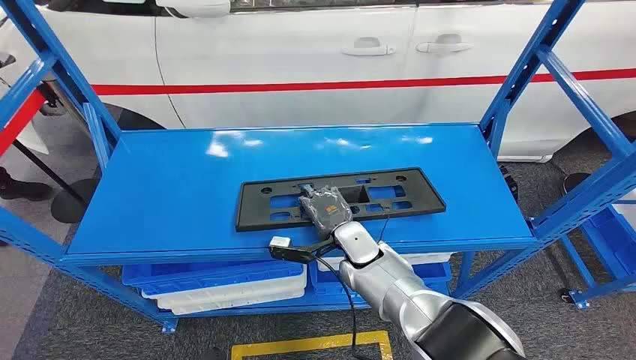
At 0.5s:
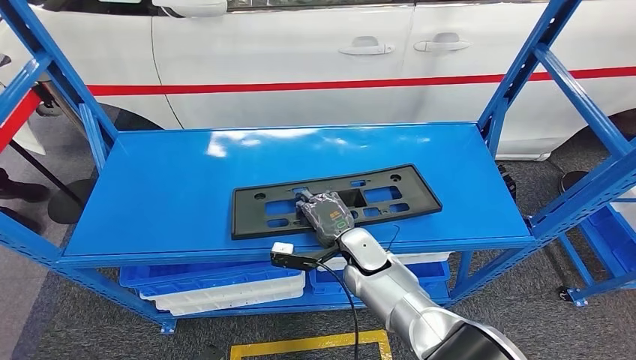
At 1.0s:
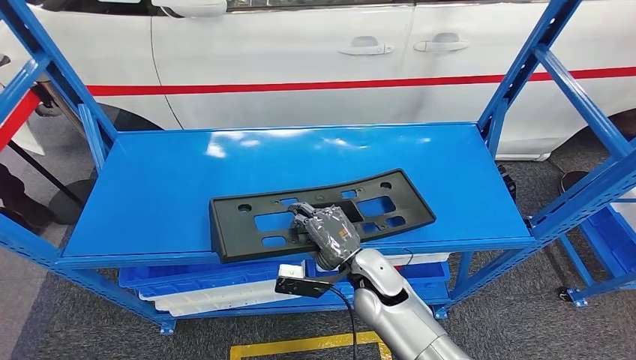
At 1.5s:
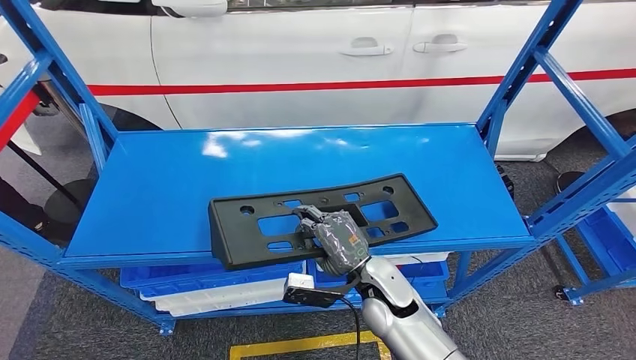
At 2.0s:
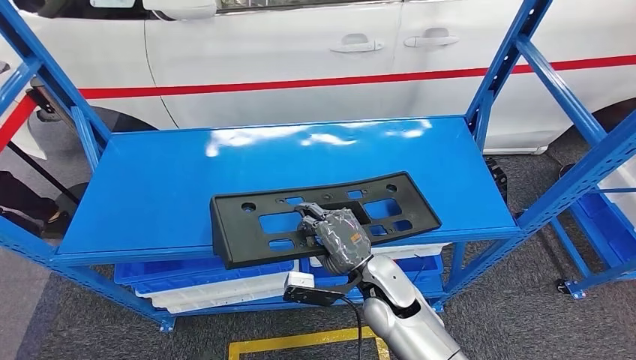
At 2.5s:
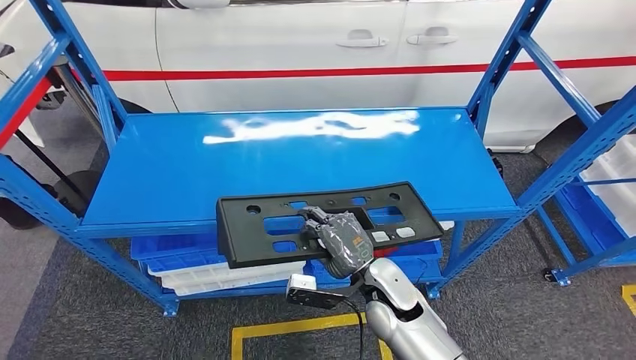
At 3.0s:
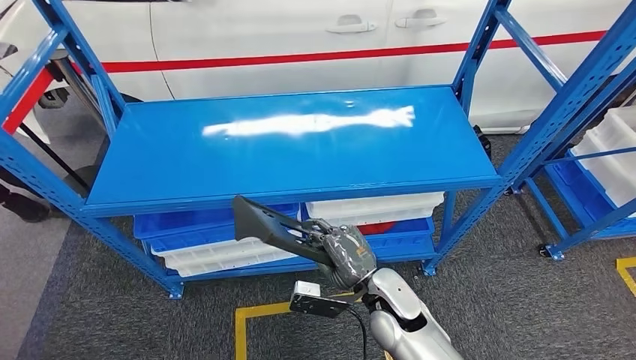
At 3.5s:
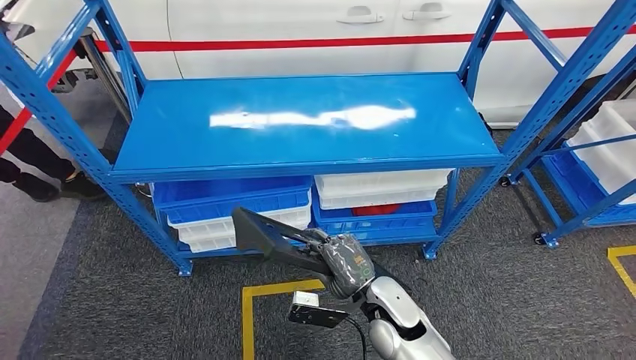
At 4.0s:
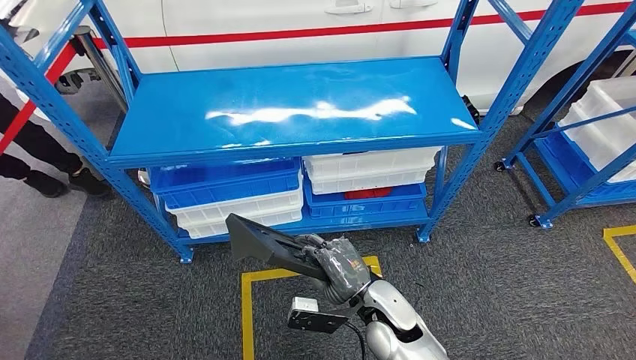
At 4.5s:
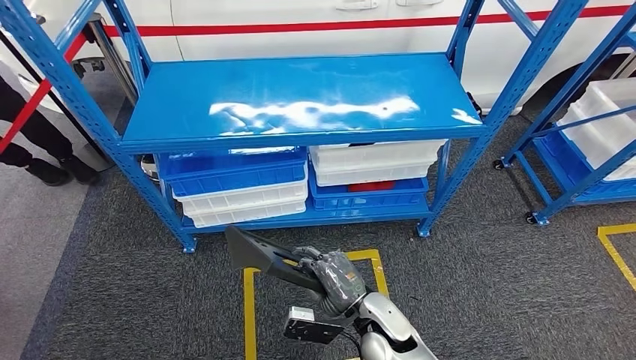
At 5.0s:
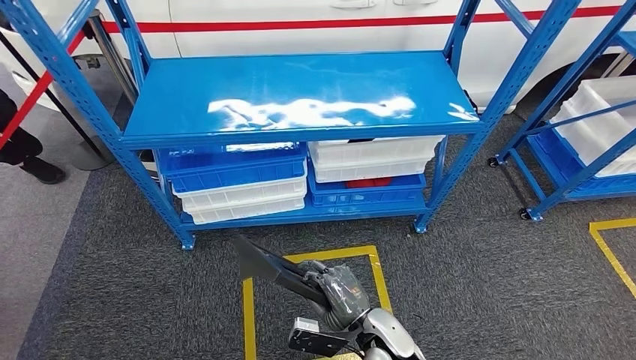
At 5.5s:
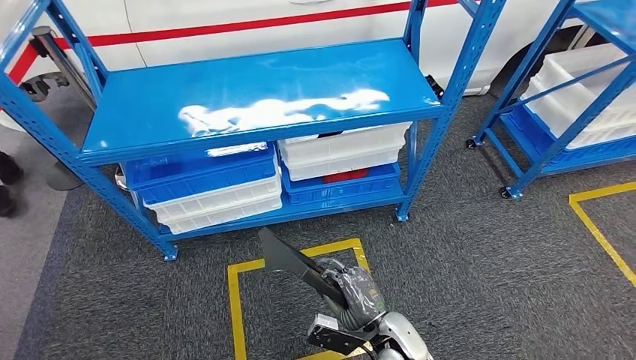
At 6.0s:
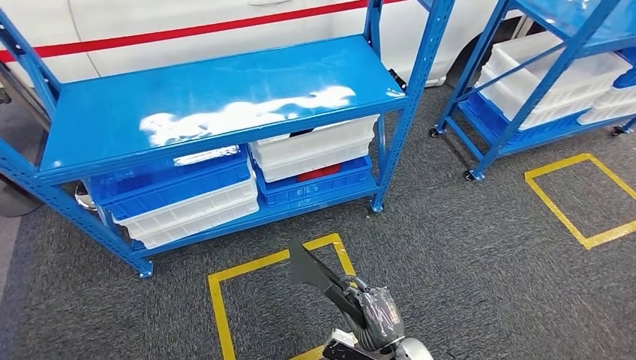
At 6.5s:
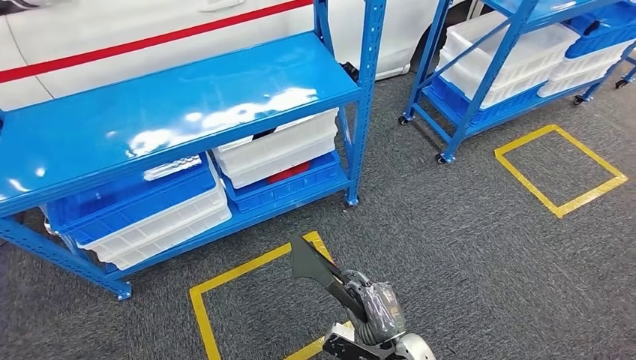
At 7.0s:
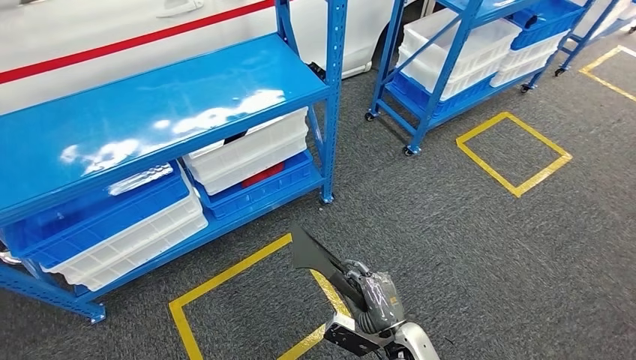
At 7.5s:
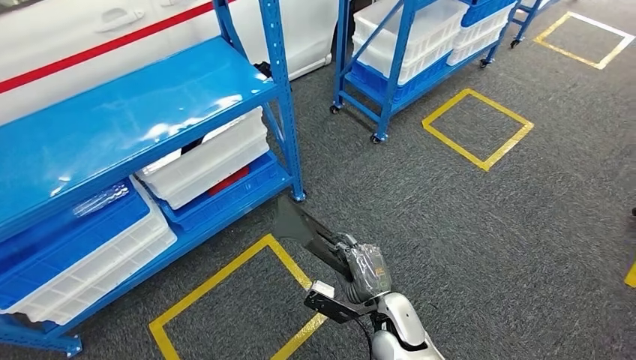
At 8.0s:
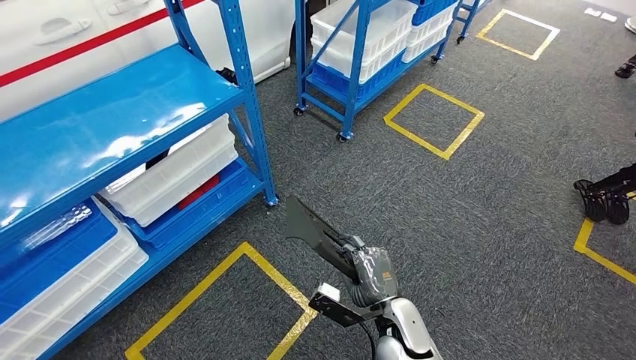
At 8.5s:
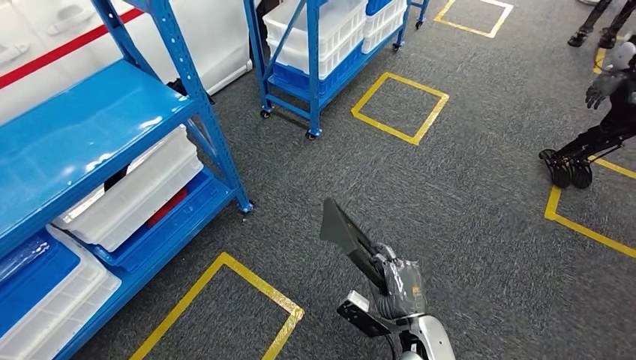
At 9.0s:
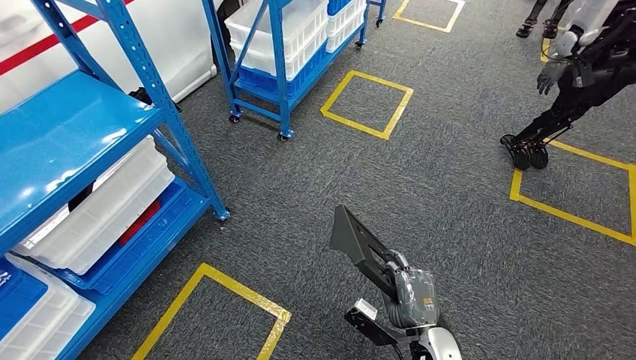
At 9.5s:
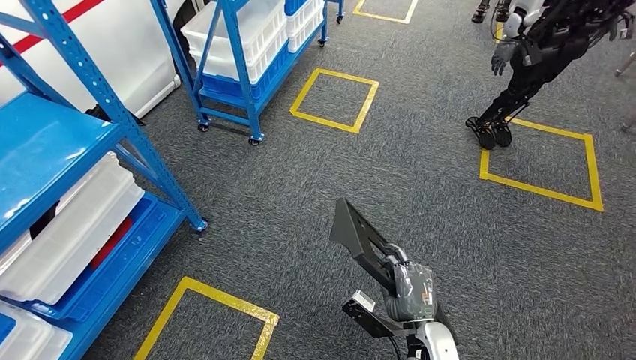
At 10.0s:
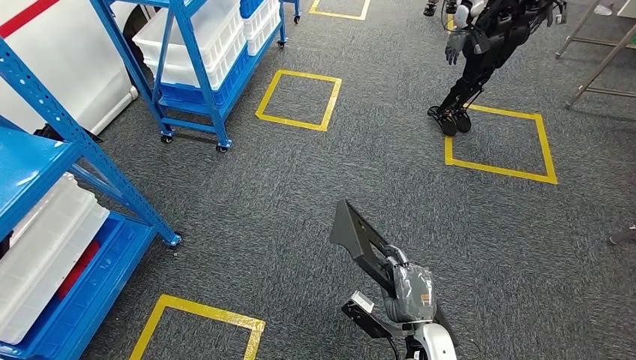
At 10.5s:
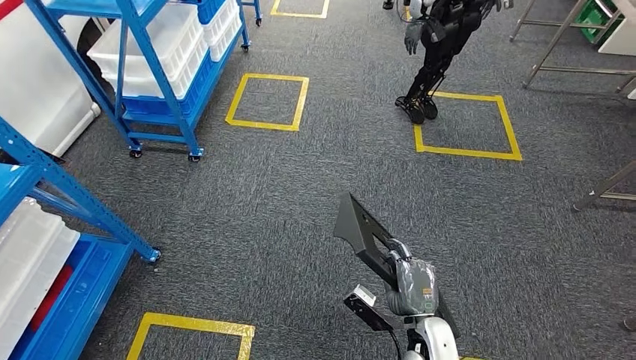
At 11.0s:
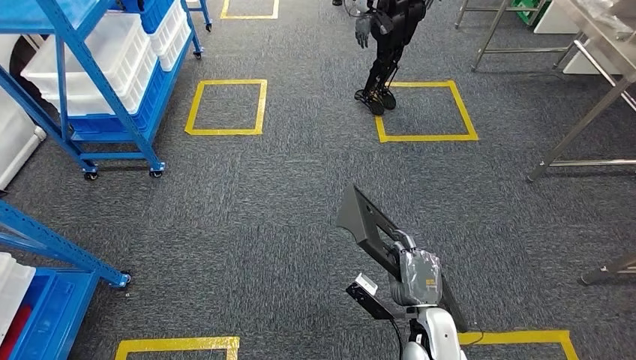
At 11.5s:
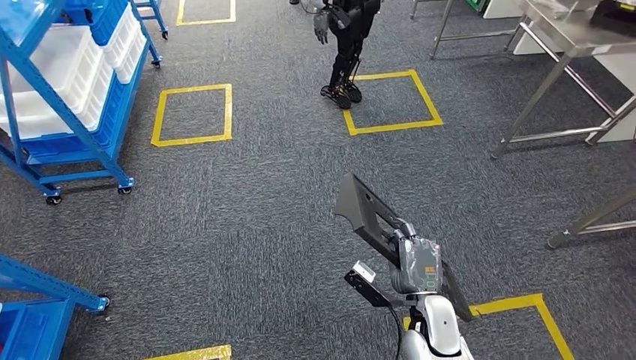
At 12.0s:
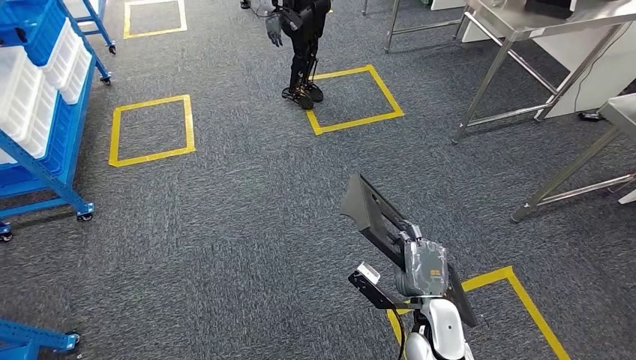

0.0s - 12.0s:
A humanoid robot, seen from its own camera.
Step, 0.0s - 1.5s: Pick up the large material from the shelf.

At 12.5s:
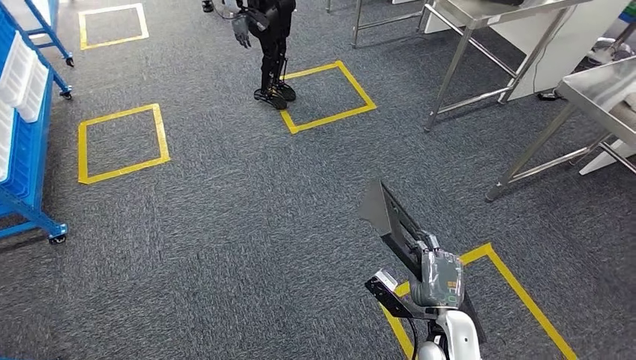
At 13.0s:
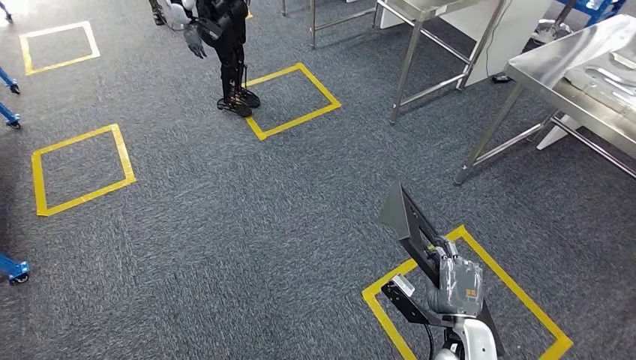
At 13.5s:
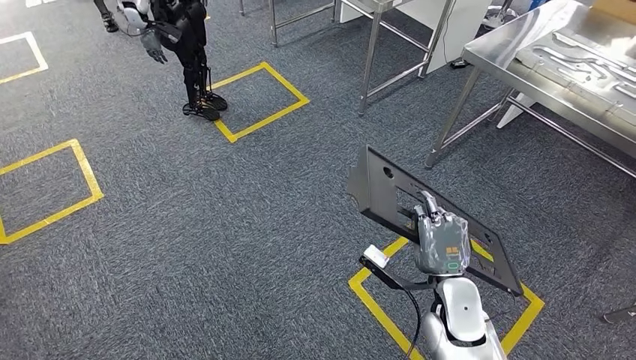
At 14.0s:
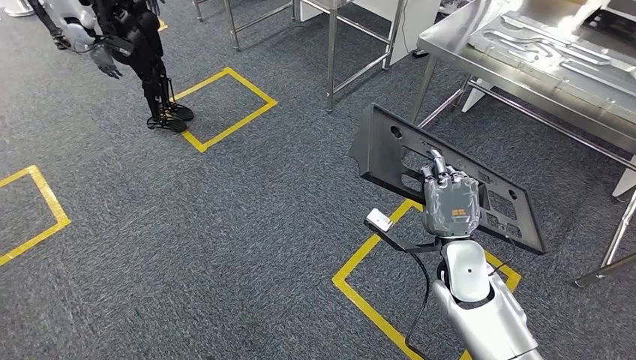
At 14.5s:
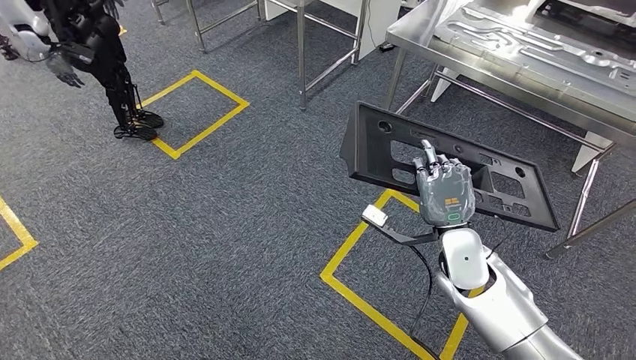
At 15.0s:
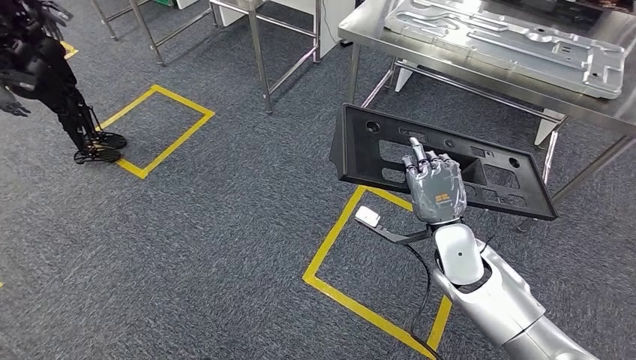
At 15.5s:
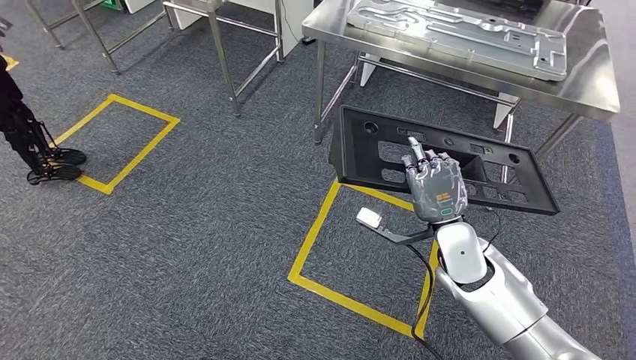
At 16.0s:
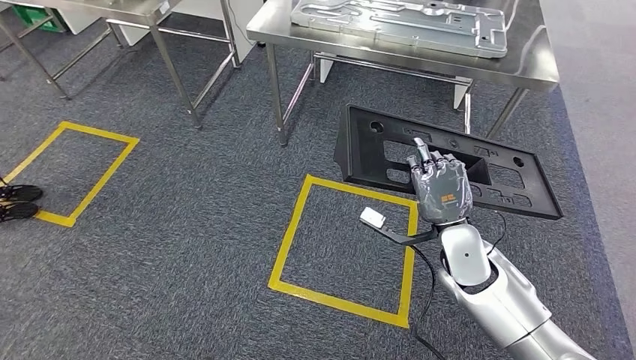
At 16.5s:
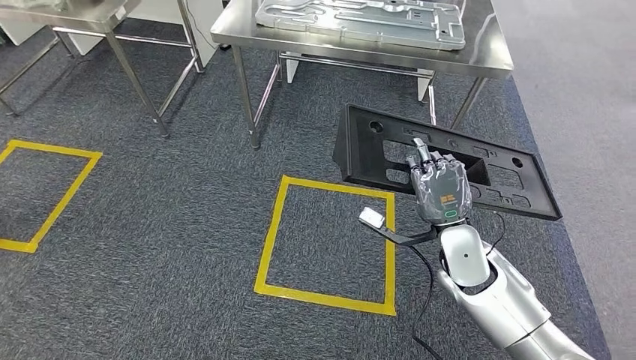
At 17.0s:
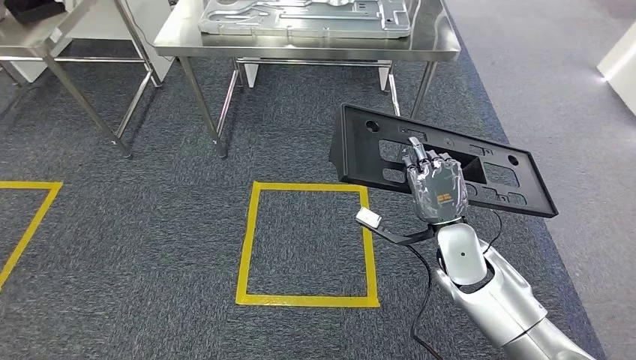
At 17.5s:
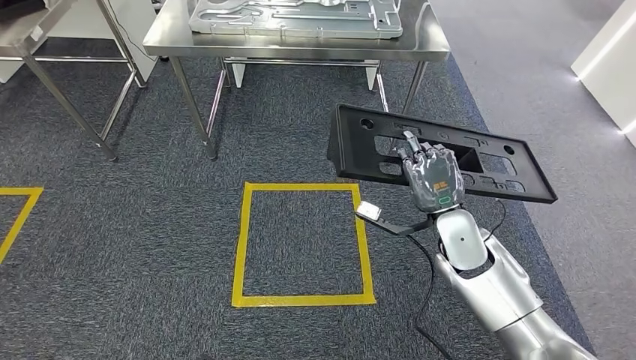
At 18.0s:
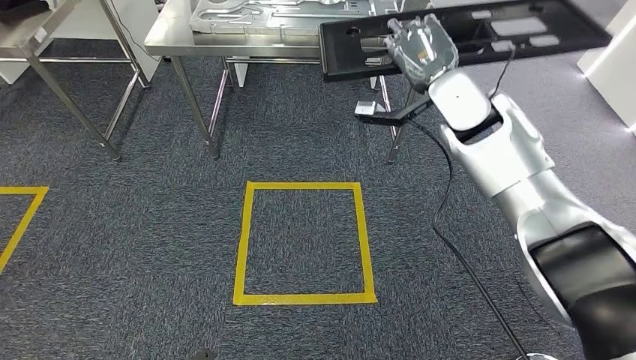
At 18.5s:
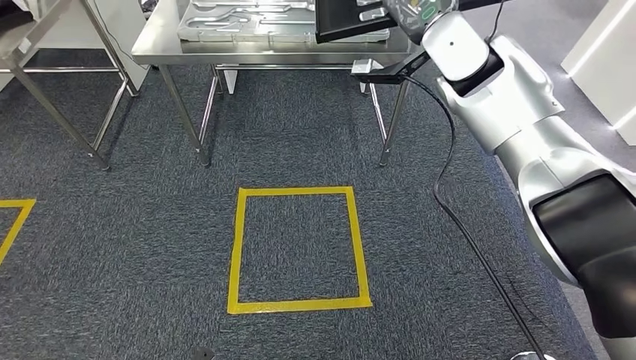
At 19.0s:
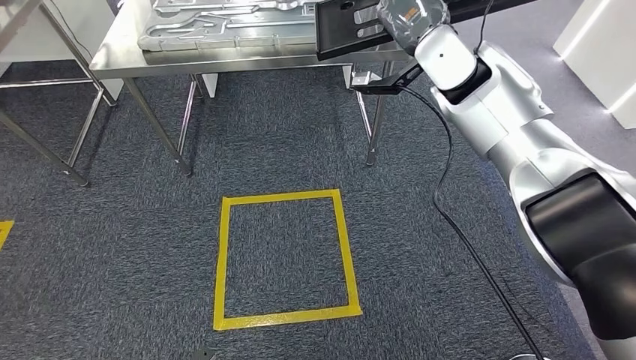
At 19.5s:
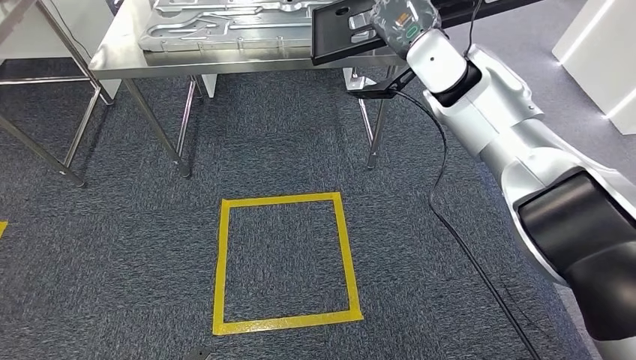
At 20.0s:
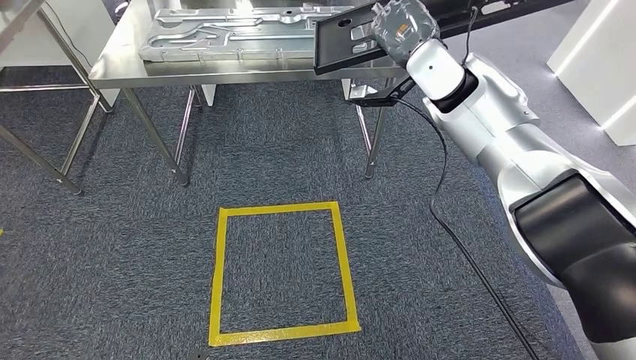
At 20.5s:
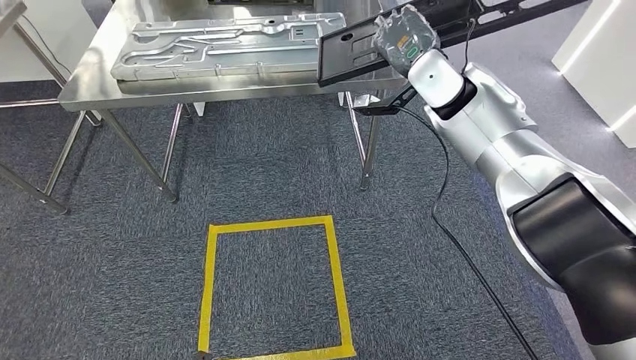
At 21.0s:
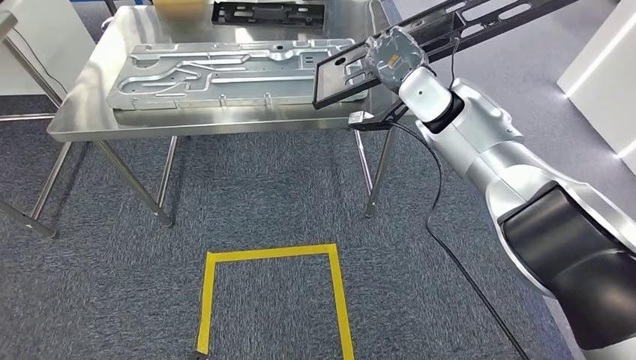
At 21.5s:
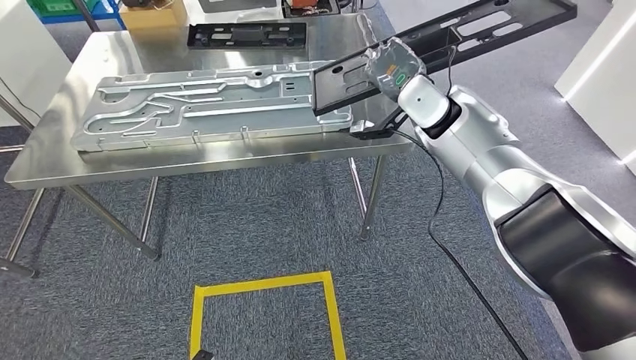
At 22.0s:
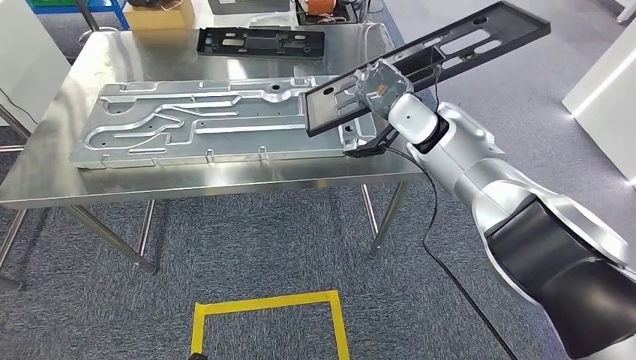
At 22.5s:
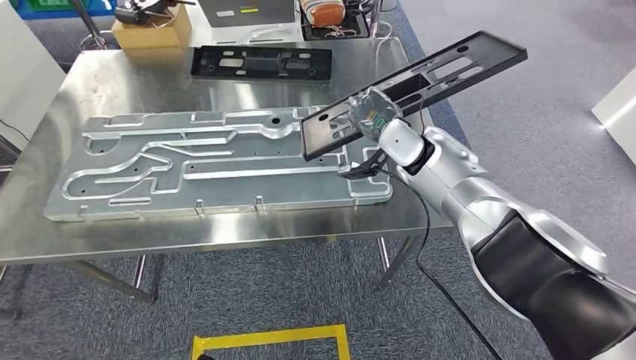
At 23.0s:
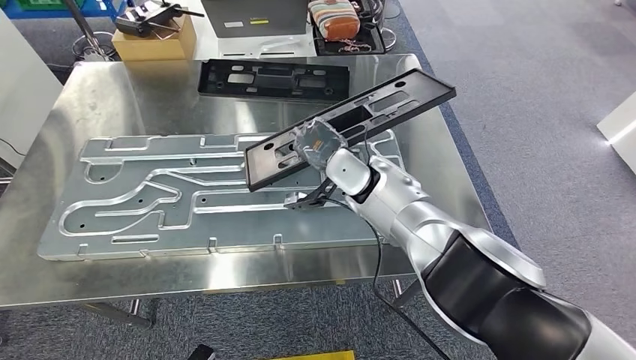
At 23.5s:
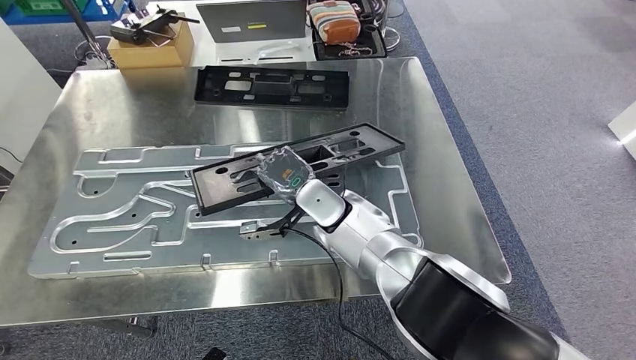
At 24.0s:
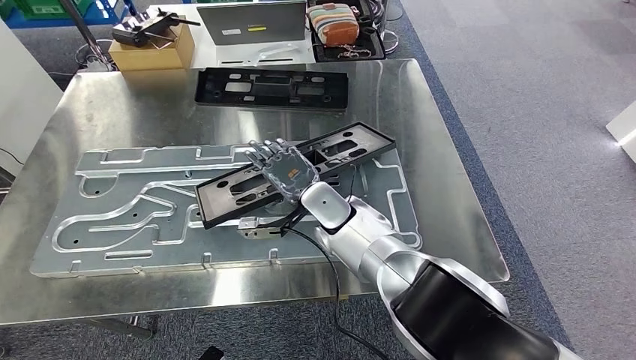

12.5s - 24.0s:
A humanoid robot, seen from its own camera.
Step, 12.5s - 21.0s: Move the large material to the front of the workbench.
